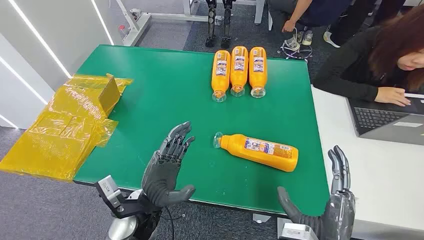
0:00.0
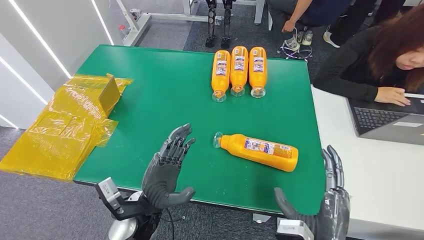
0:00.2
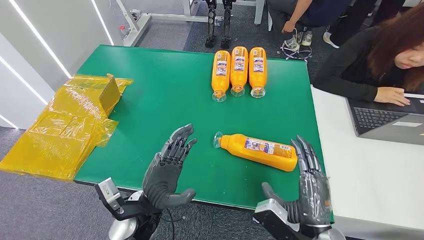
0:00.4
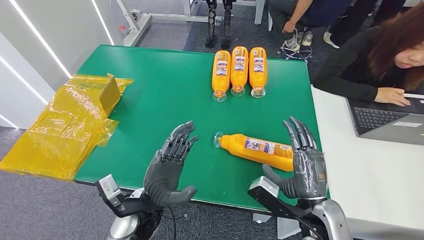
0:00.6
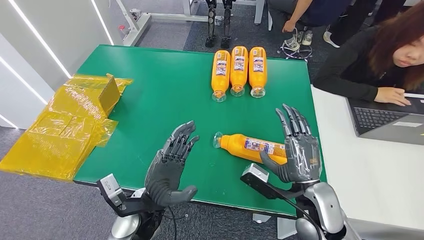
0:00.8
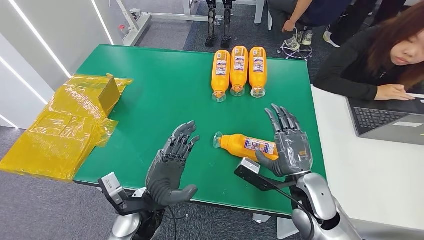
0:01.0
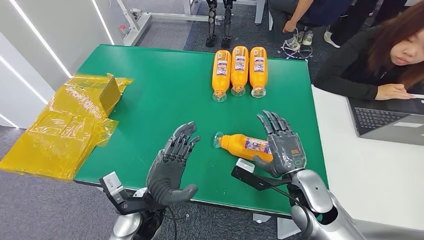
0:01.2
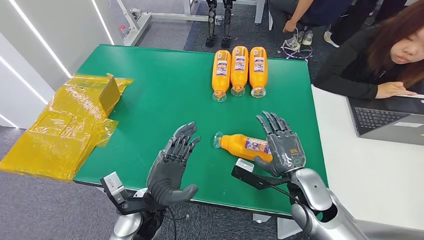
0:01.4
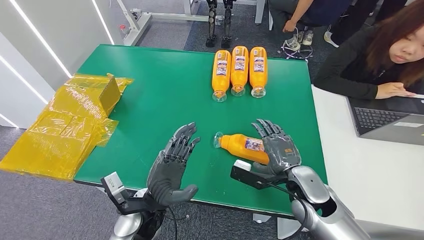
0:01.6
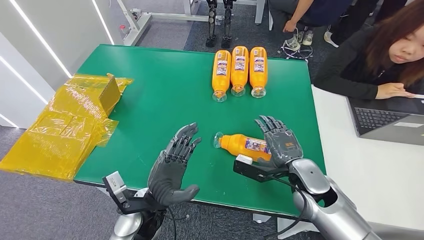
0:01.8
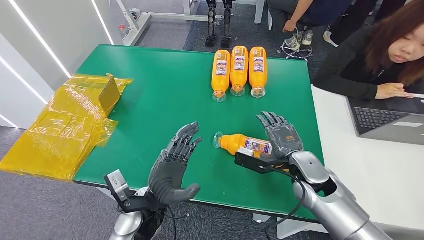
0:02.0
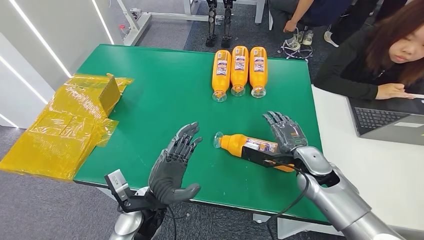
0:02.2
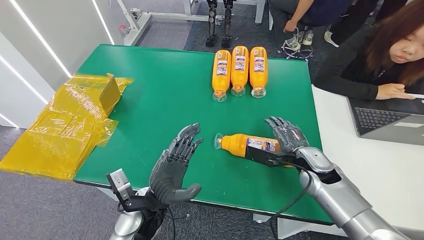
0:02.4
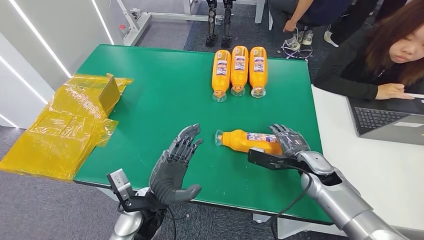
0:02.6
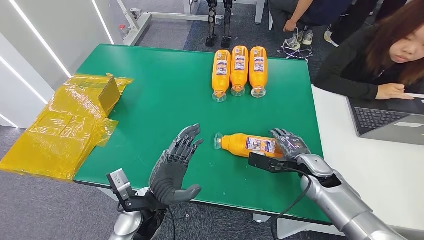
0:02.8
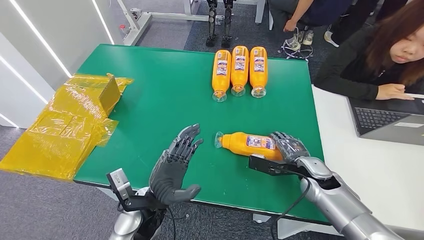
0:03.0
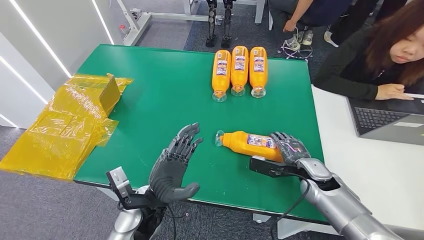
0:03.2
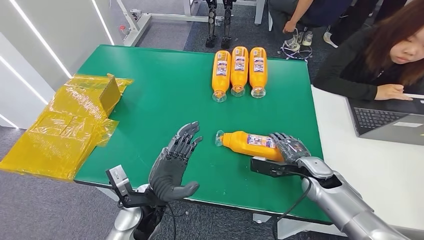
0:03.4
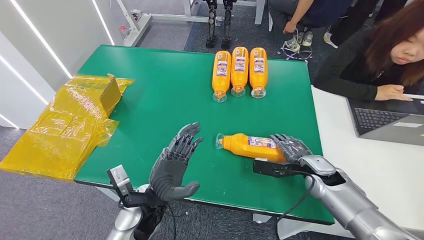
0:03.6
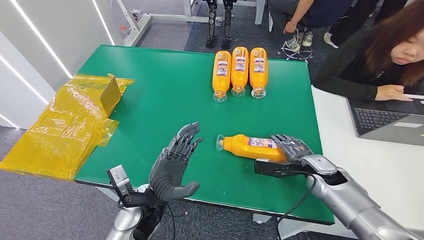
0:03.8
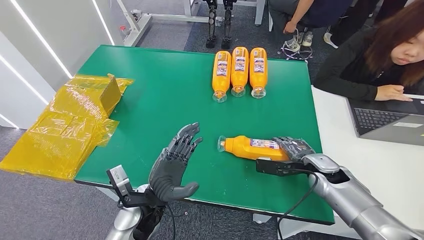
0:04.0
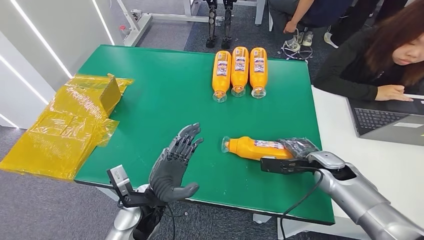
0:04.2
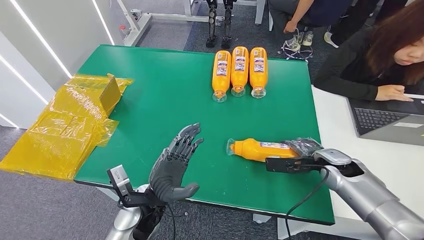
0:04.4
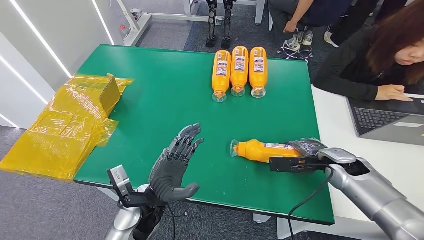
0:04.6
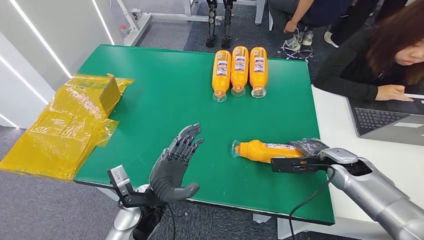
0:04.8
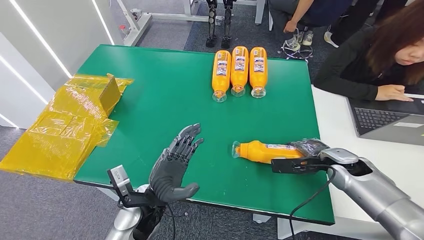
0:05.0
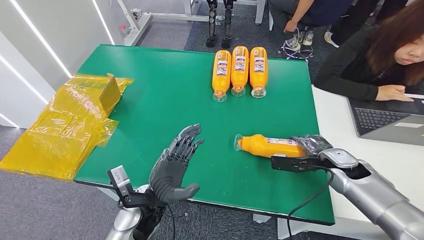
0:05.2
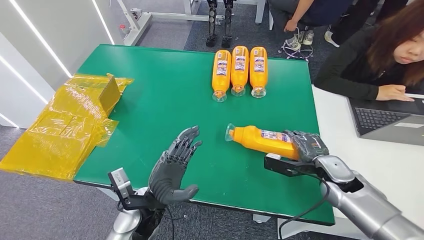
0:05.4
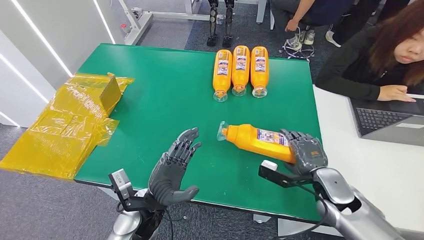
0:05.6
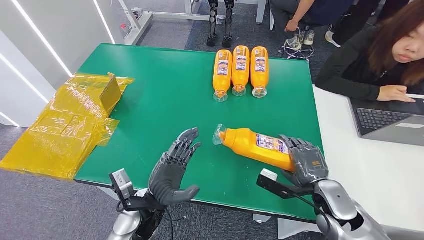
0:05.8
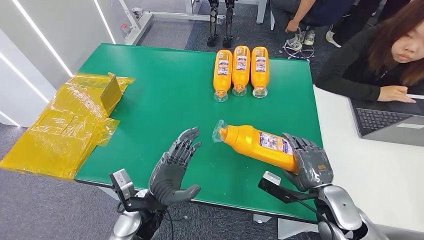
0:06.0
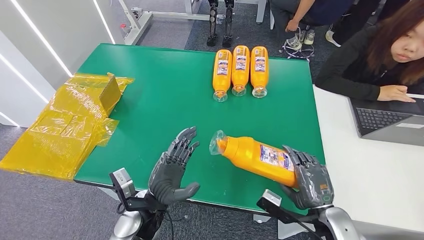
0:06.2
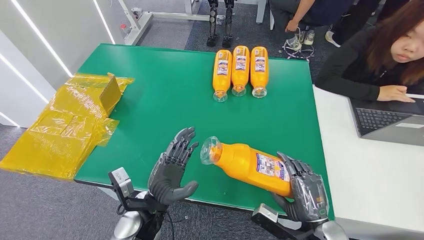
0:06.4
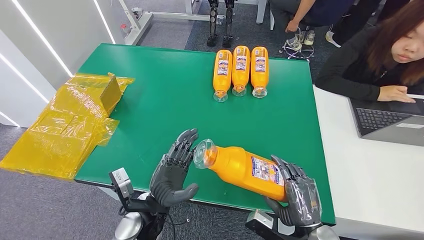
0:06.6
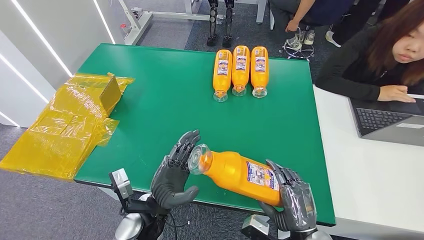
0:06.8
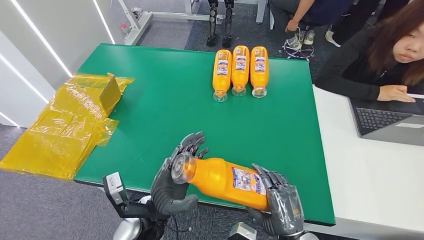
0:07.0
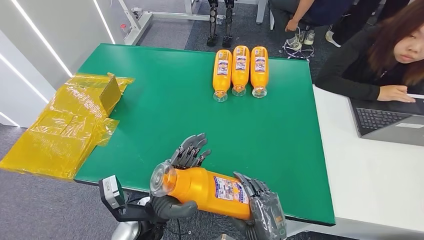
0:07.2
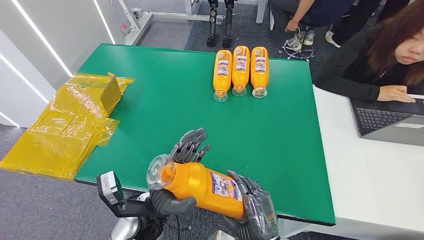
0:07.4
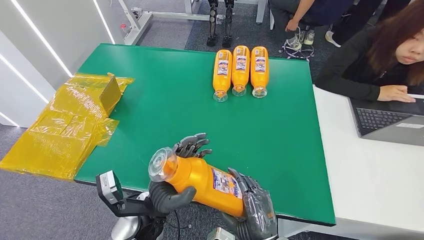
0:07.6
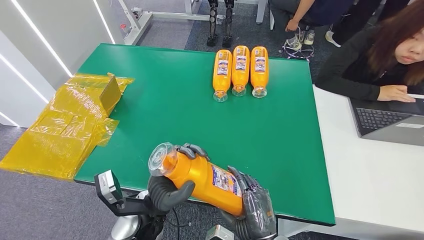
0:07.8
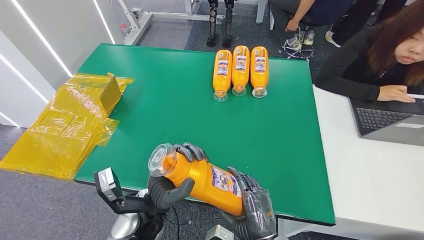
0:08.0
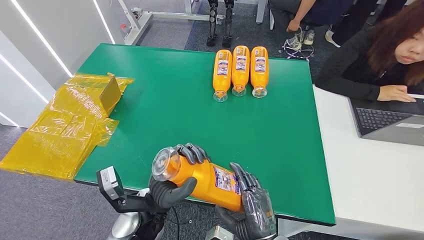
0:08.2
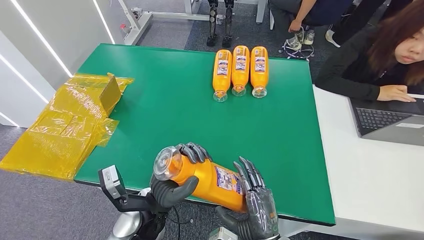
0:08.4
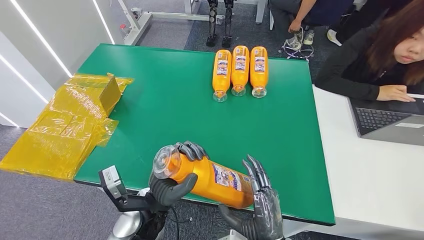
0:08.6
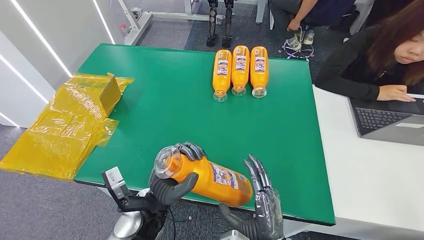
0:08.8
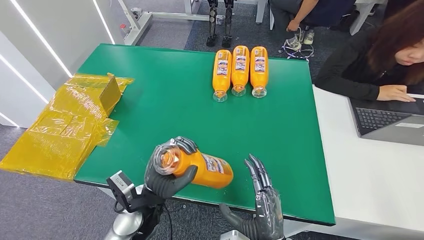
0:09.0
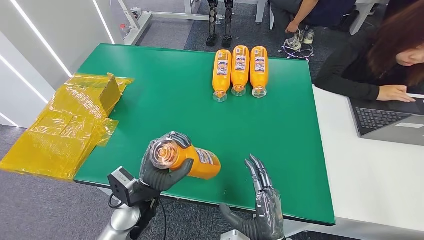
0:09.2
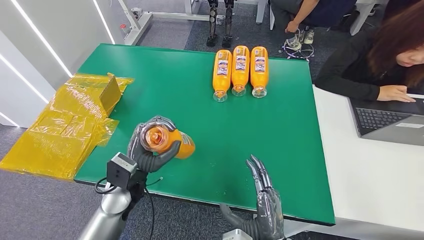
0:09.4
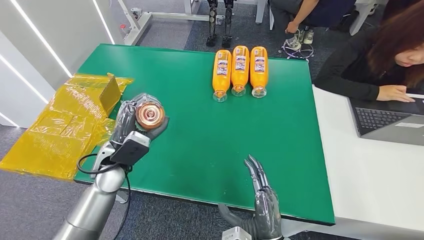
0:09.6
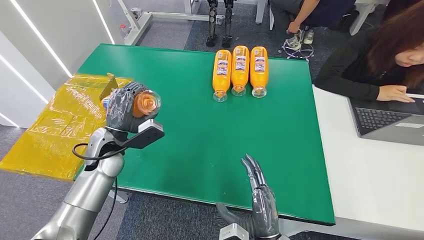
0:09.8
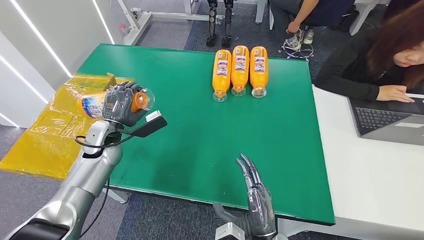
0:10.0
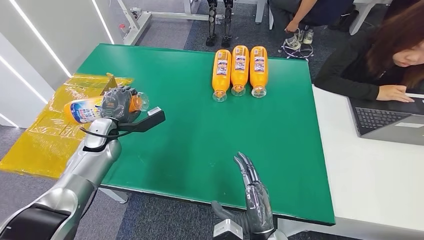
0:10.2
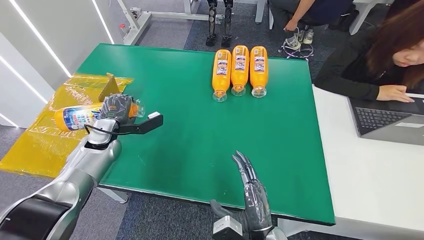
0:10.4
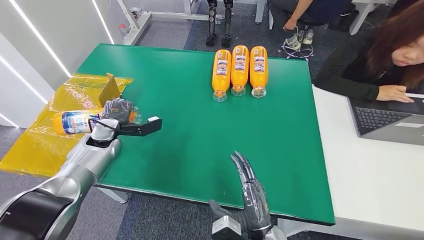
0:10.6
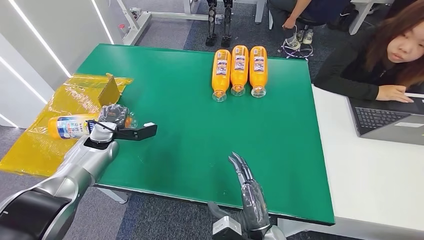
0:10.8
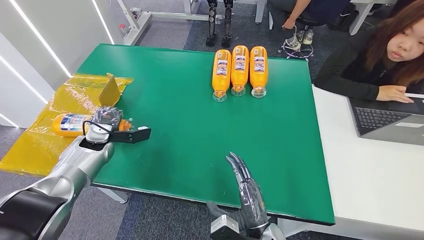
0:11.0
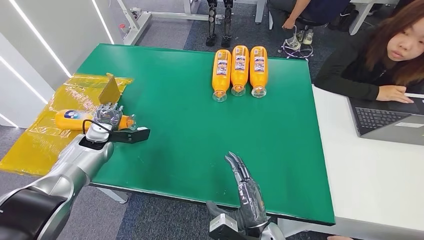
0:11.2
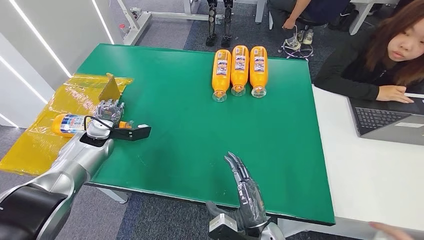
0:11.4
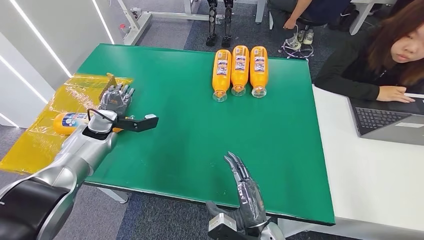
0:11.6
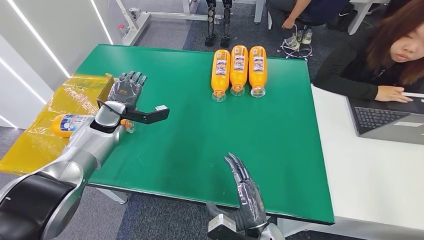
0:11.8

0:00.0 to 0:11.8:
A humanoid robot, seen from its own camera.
Step, 0:00.0 to 0:06.4: Pick up the bottle from the table.
Step, 0:06.6 to 0:11.8: Turn the bottle to the front side.
0:01.4 to 0:03.0: The right hand moves forward and to the right, approximately 10 cm.
0:03.0 to 0:04.4: The right hand changes place by approximately 5 cm.
0:04.4 to 0:06.0: The right hand travels backward by about 10 cm.
0:06.0 to 0:07.4: The right hand heads to the left and backward, covering roughly 20 cm.
0:07.4 to 0:08.8: The hands move only a little.
0:08.8 to 0:10.4: The left hand moves to the left and forward, some 30 cm.
0:10.4 to 0:11.8: The left hand moves roughly 5 cm.
